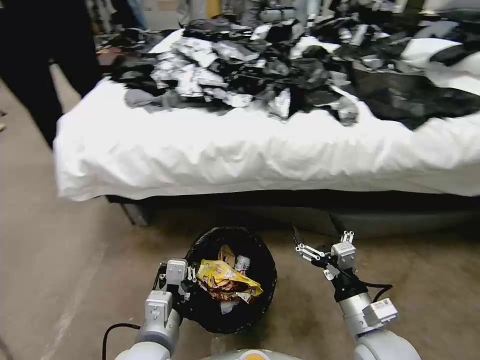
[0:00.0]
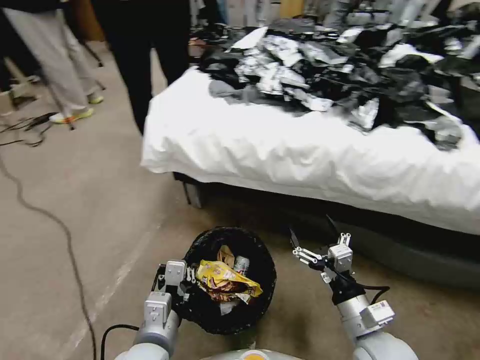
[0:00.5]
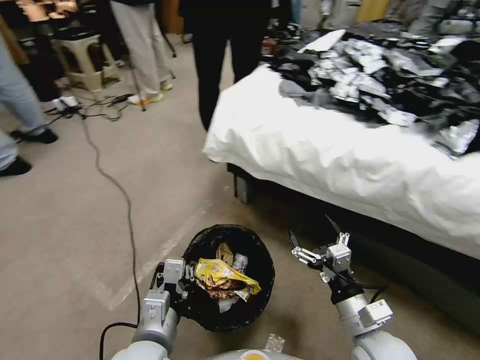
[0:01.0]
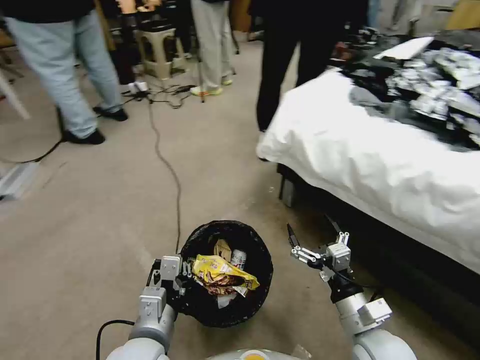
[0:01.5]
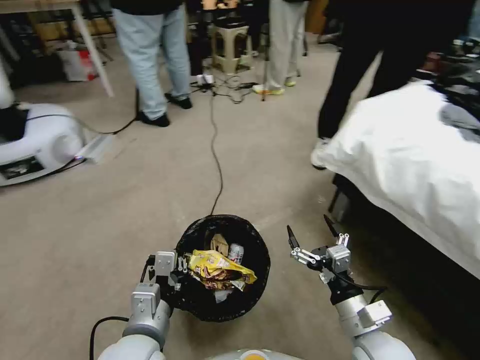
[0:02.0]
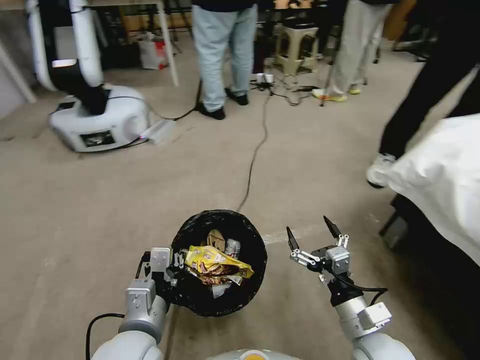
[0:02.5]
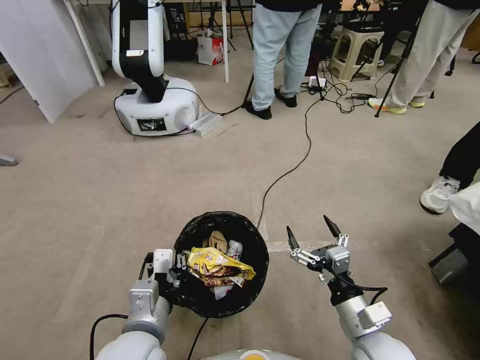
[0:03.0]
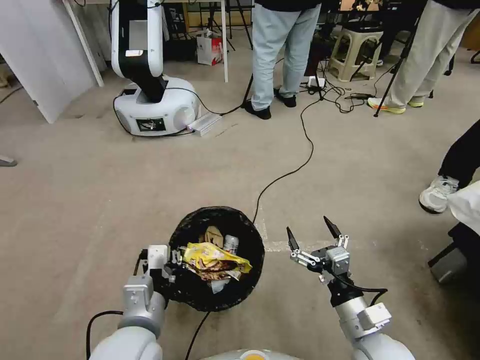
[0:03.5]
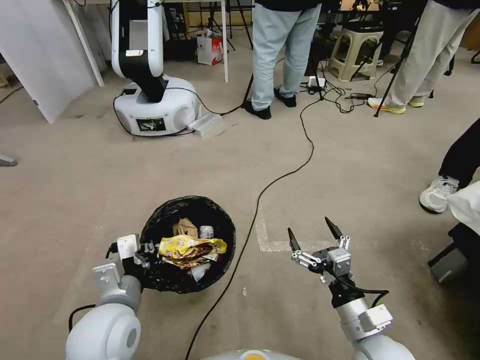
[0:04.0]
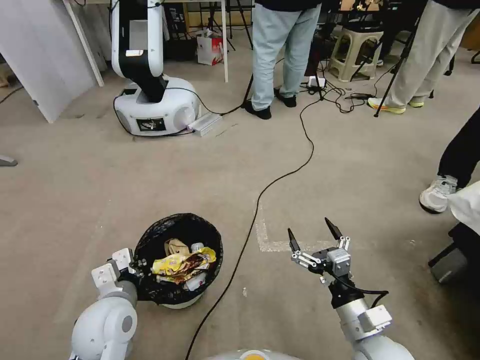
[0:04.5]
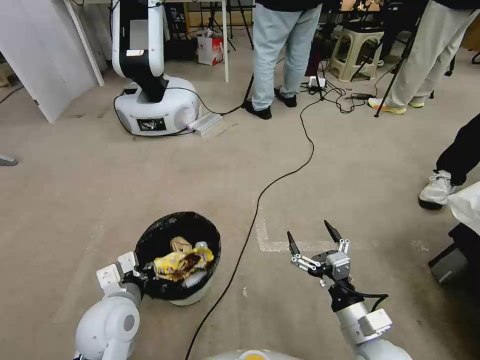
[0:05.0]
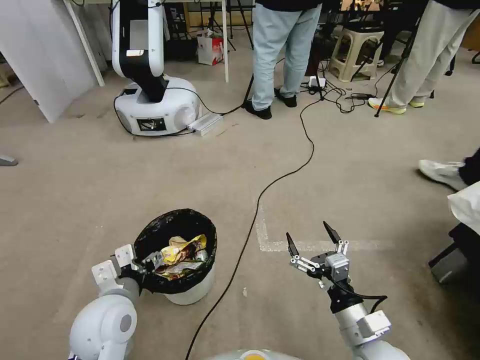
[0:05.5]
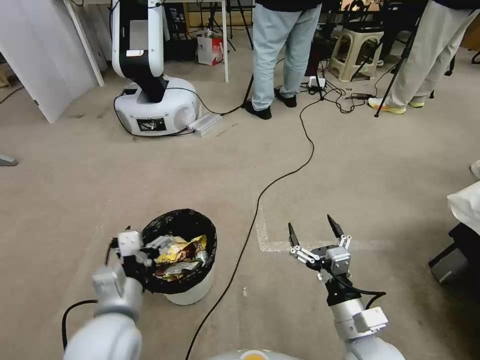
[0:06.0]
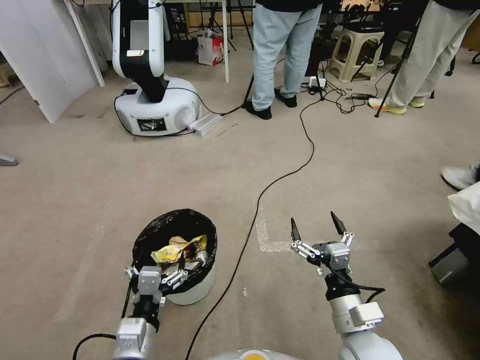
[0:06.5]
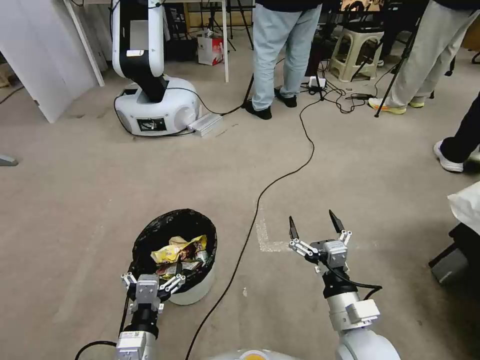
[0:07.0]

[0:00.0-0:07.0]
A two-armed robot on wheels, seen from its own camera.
Task of the whole recording: Pick up the trash bin, then pick up the garbage from the floor and place it into the trash bin.
0:03.5 to 0:05.0: The left gripper shifts roughly 10 cm to the left and forward.
0:05.0 to 0:07.0: The left gripper shifts about 10 cm backward and to the right, and opens up.
